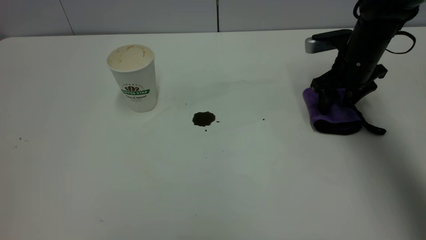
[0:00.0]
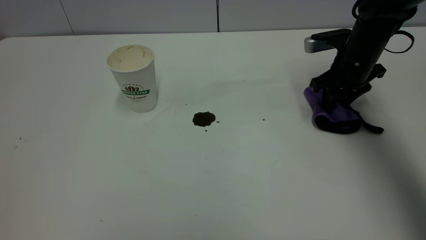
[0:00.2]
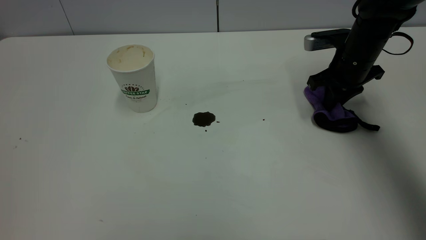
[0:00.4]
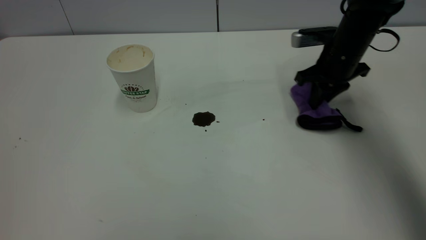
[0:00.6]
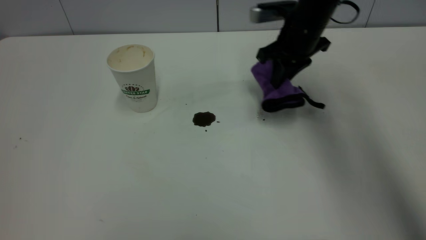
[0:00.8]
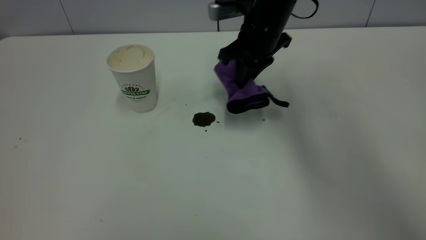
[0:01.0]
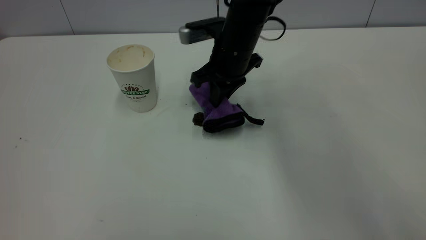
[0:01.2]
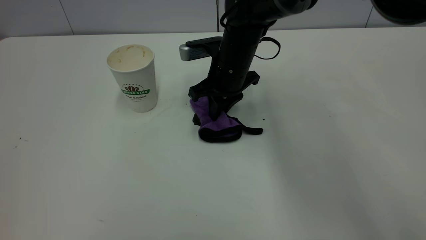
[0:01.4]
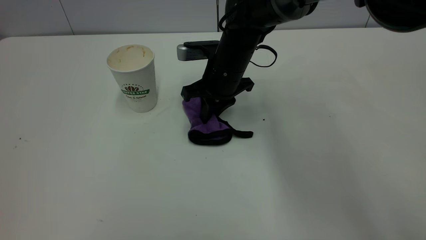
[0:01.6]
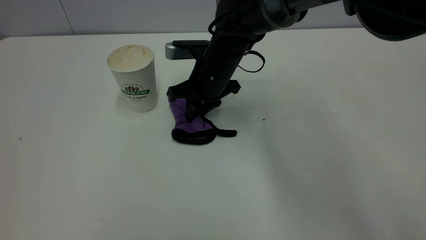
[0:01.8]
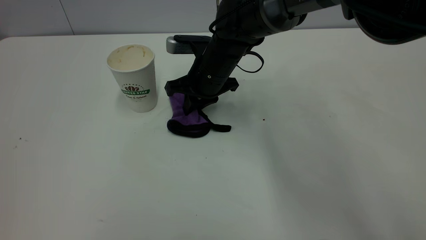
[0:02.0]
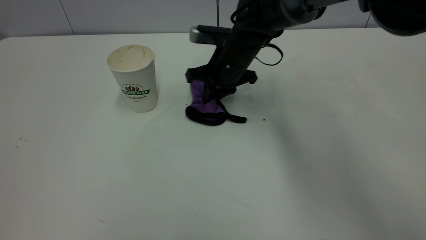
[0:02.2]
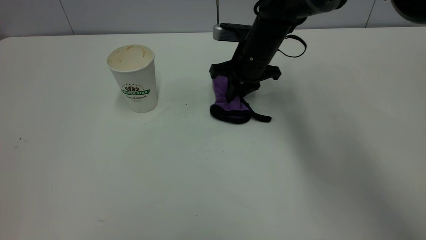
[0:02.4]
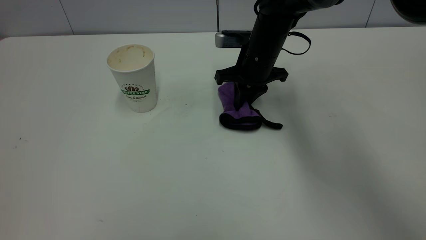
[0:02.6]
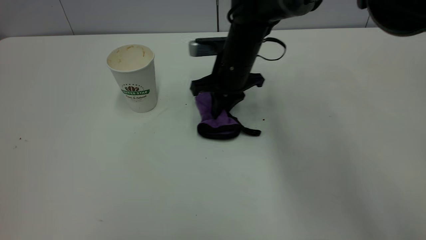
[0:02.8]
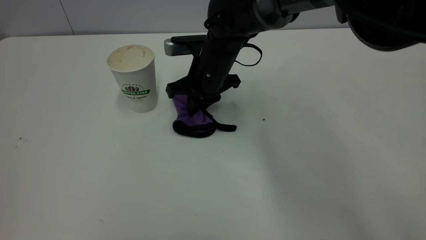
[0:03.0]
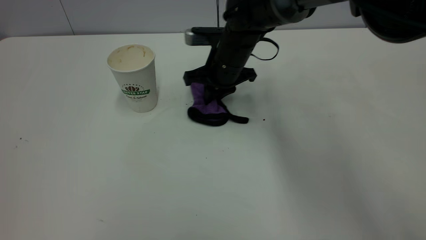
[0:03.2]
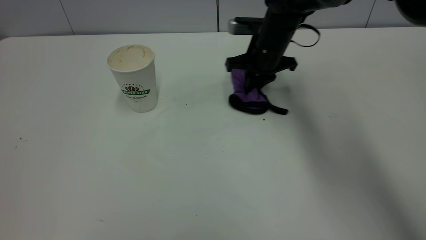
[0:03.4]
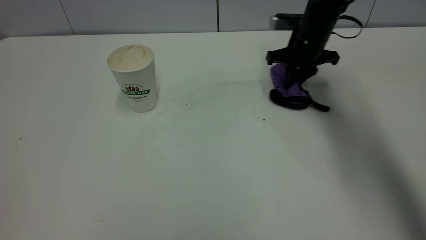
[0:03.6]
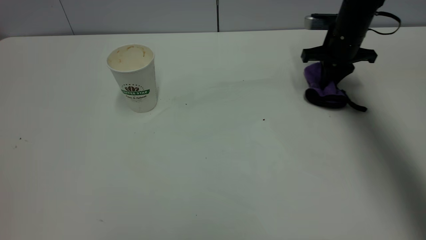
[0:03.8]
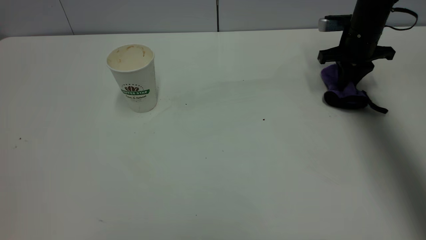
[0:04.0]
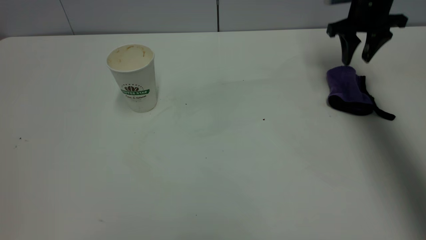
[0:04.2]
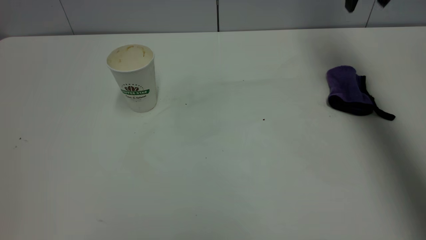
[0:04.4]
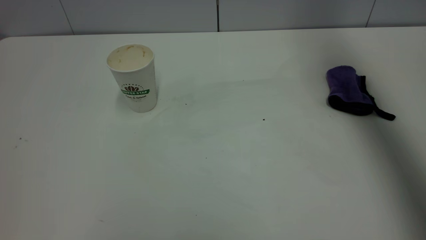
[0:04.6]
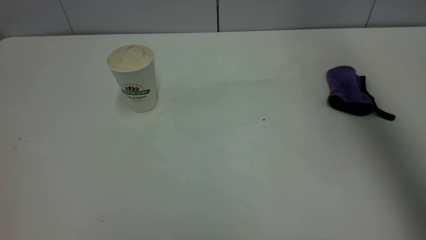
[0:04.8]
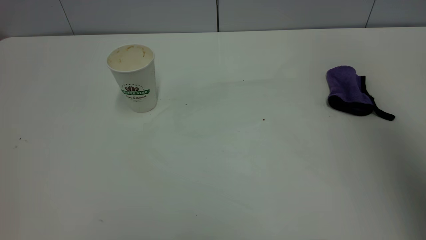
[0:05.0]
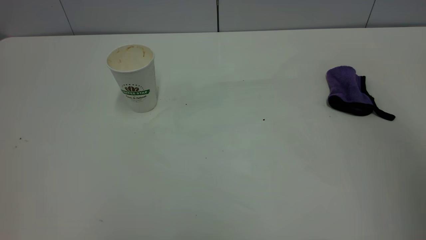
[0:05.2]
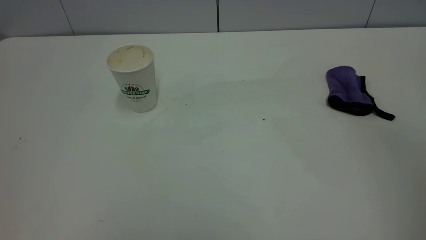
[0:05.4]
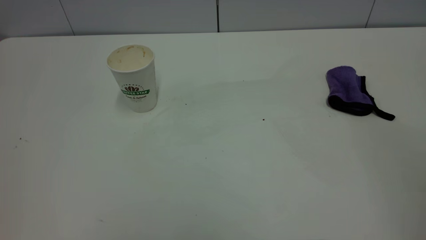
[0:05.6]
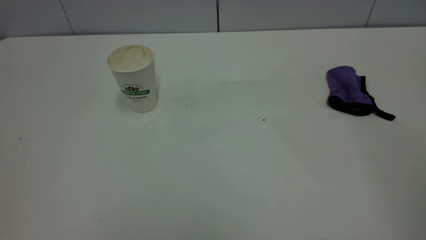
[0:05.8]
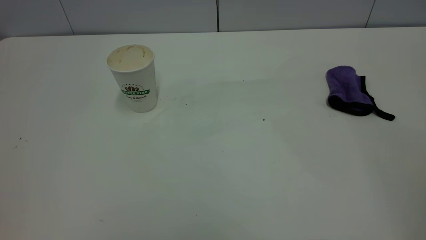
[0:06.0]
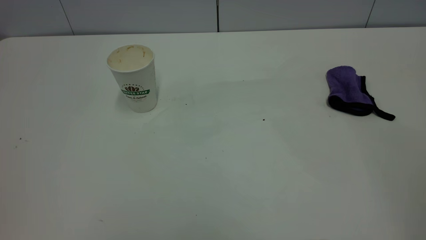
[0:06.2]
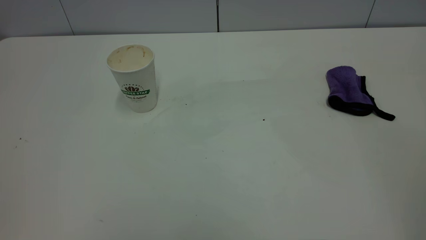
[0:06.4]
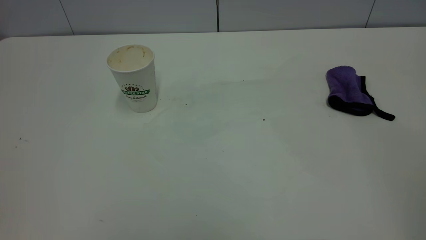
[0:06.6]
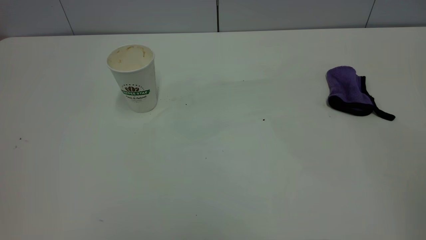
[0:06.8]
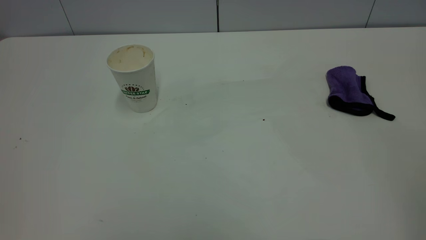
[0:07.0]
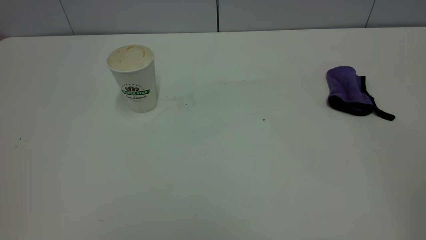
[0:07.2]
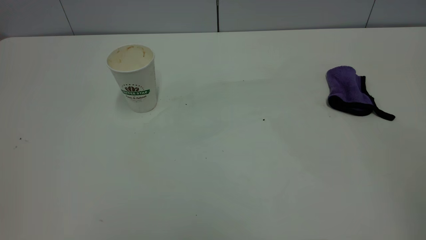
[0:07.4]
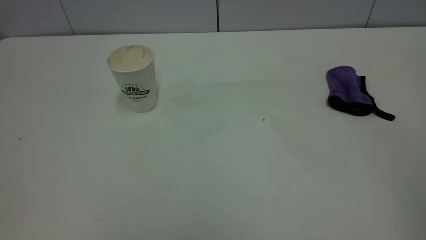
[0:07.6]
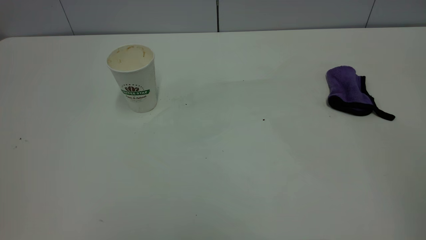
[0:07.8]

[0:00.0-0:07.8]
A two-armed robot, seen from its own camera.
Task of the whole recording: the left gripper pick up the fallen cup and place it upright, the right gripper grasp the purple rag and wipe the coffee stain on the table, the right gripper put the purple rag back in its original position.
Step, 0:00.0 to 0:04.2: Wipe the stains off the table with a rag.
0:00.0 to 0:01.6: The right gripper heads to the left, covering some 20 cm, and closes its fingers.
0:01.6 to 0:03.2: The right gripper swings left and right, some 10 cm each way, with 2 reversals.
0:03.2 to 0:04.6: The right gripper moves upward and to the right, roughly 40 cm, and opens its fingers.
0:04.6 to 0:06.2: The right gripper goes about 40 cm backward.
